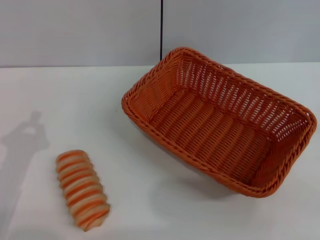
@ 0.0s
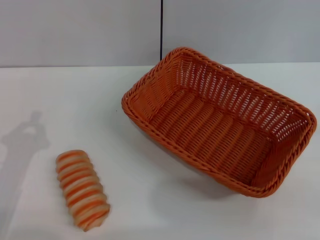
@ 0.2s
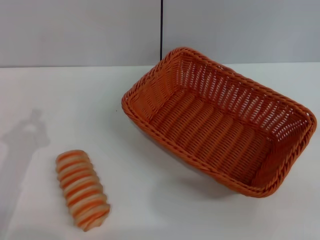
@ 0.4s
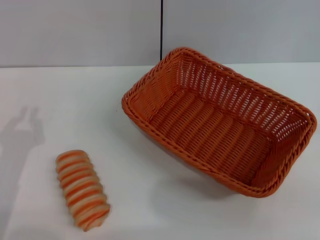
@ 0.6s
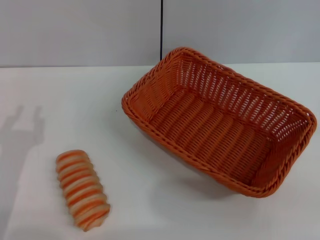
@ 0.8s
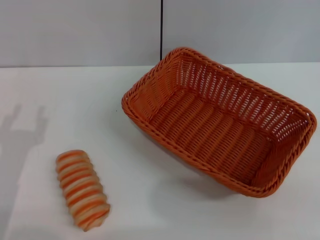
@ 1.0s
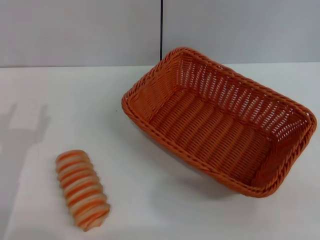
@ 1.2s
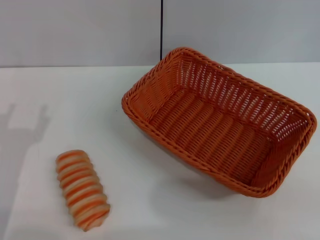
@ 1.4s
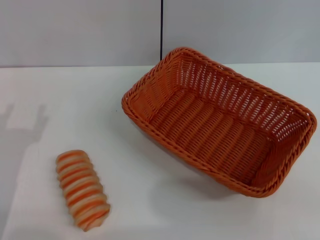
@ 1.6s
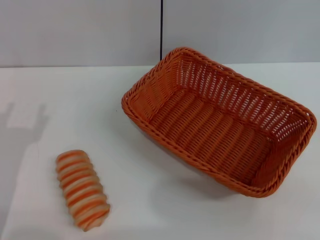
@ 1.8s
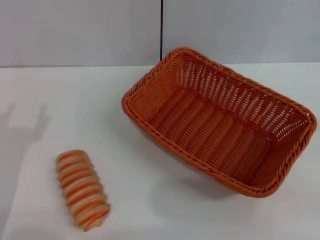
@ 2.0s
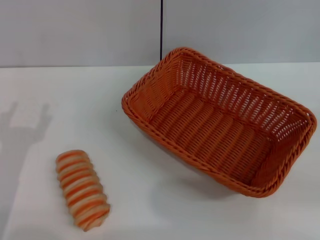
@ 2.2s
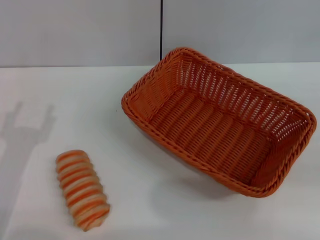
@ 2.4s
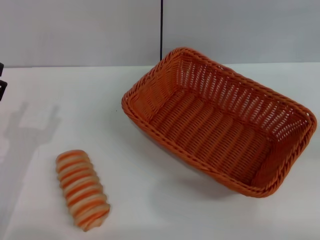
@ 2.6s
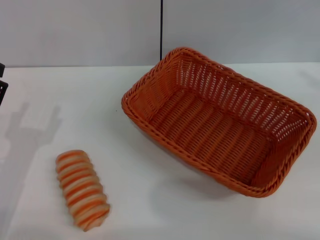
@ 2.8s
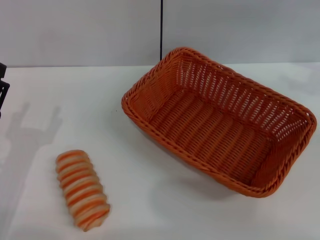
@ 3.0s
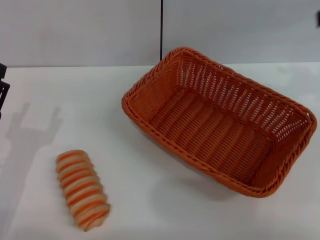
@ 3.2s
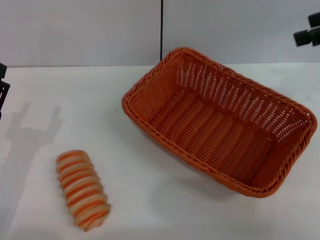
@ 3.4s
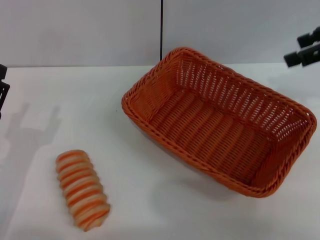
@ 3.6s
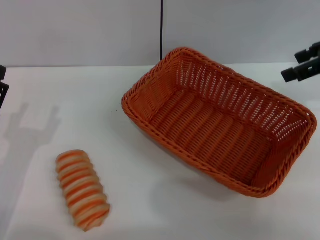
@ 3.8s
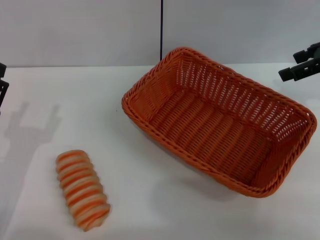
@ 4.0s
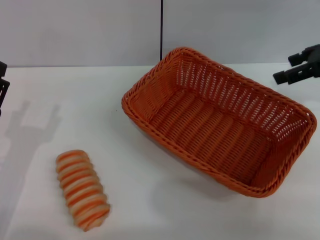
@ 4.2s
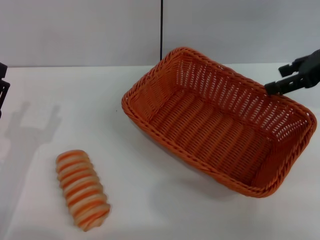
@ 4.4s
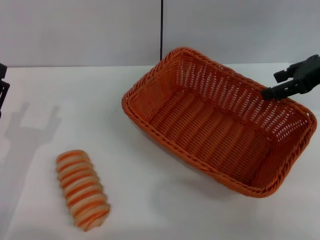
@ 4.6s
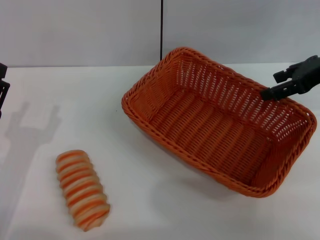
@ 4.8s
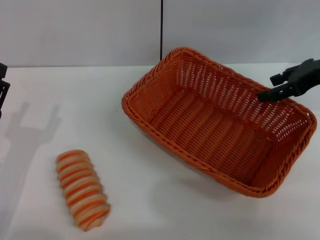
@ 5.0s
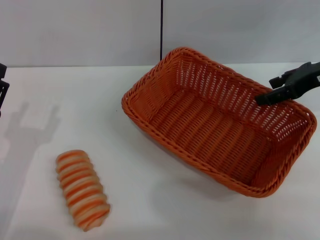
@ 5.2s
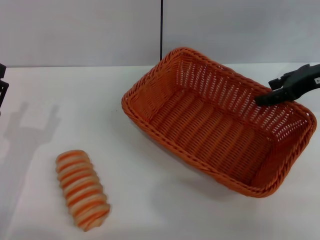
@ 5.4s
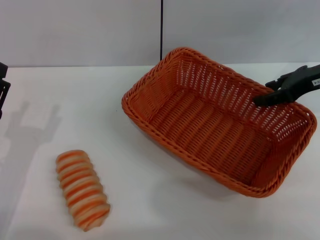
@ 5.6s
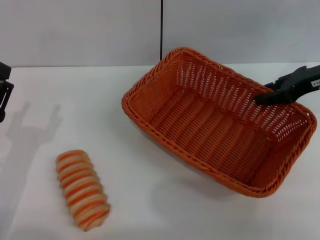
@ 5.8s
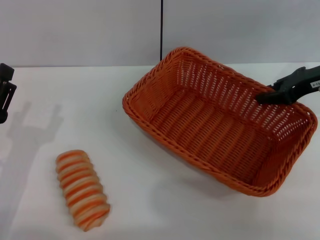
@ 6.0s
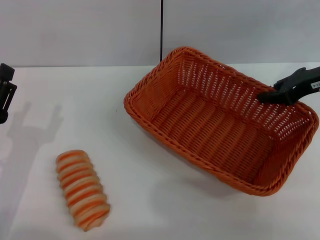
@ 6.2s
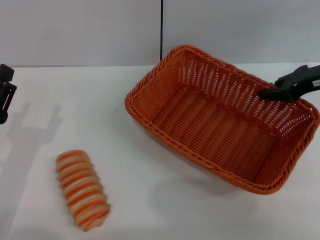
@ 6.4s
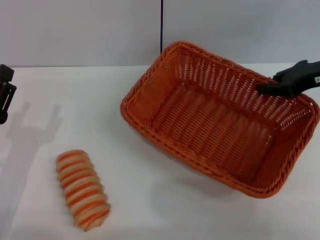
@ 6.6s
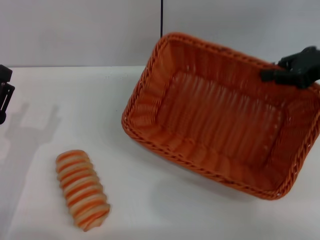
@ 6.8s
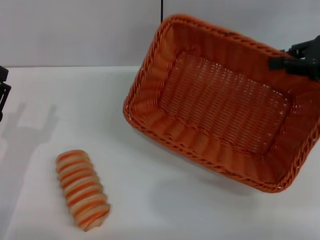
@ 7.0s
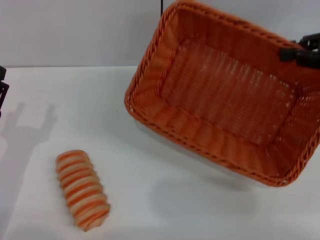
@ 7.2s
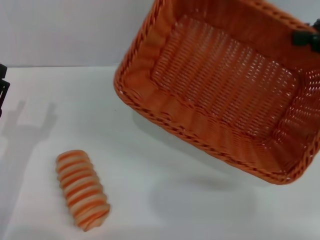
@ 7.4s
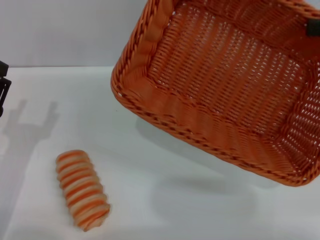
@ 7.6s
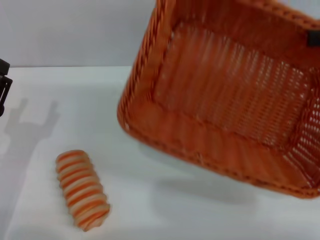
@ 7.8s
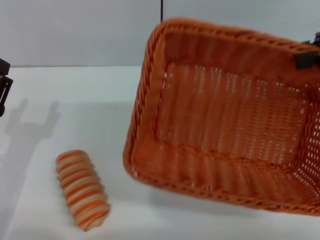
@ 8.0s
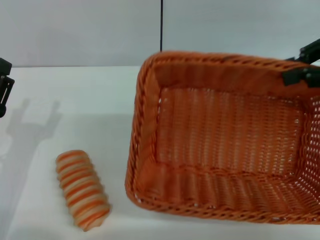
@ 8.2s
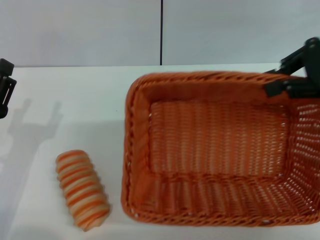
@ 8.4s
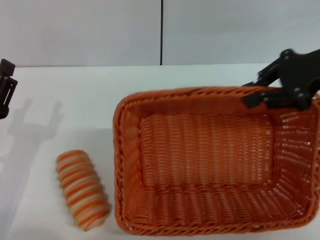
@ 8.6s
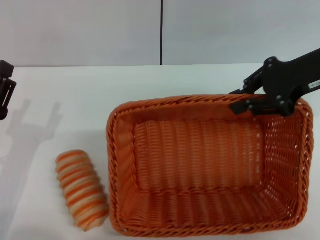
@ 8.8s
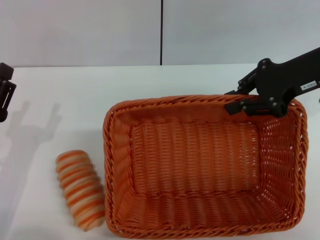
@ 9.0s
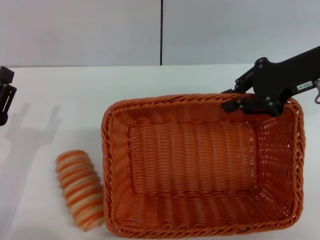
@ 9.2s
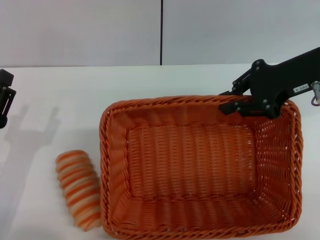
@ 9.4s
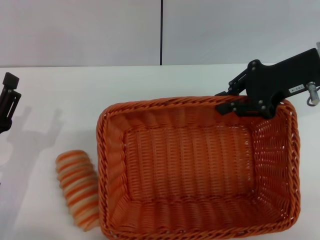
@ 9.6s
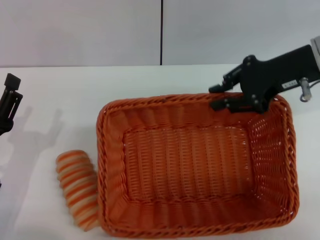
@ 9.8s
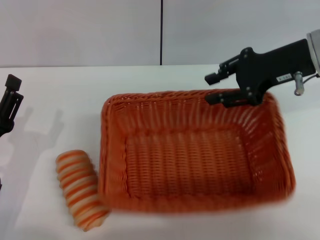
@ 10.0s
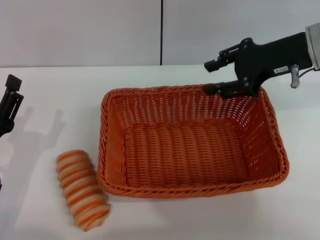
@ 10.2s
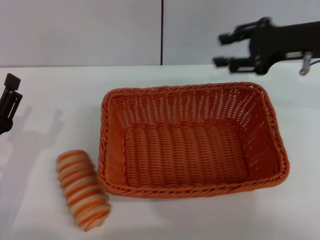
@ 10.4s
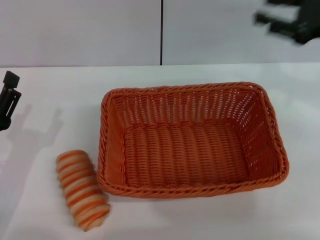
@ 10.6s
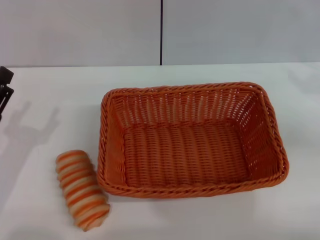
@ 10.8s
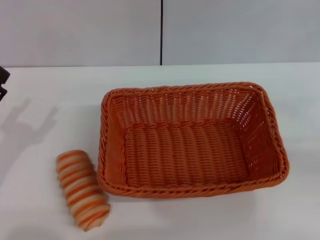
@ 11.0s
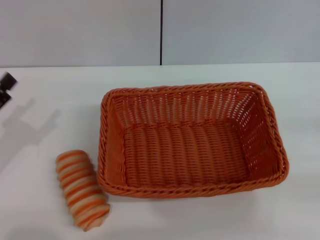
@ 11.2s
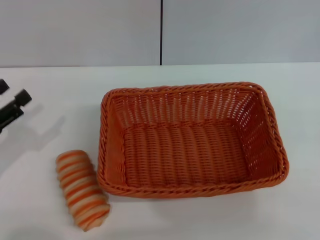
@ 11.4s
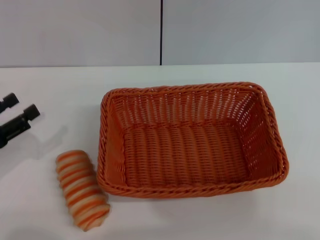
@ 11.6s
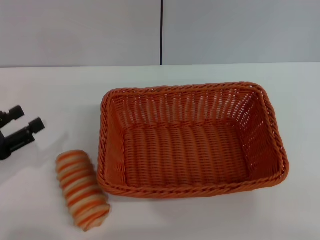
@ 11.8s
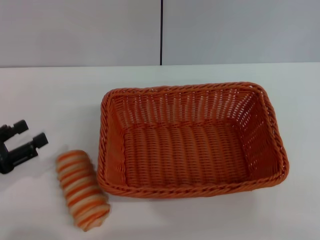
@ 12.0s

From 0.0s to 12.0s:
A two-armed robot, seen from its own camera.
Step, from 0.0s to 7.0s: Pick up the light basket with the right gripper.
Step, from 7.2s to 10.2s: Place the light basket in the center of view with the right gripper.
From 3.0s to 4.4s: The right gripper travels downward, to the left and forward by some 15 cm.
From 4.4s to 6.0s: The right gripper closes up.
From 6.0s to 7.6s: The right gripper moves upward, to the right and backward, about 10 cm, and closes.
From 7.6s to 9.0s: The right gripper travels to the left by roughly 10 cm.
From 9.0s to 10.4s: The right gripper opens its fingers.
From 10.4s to 12.0s: The right gripper travels to the right, backward and downward by about 35 cm; the left gripper heads to the left, covering some 10 cm.

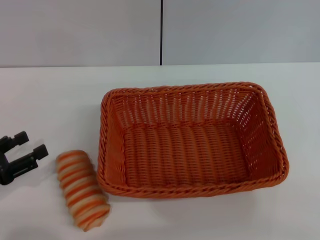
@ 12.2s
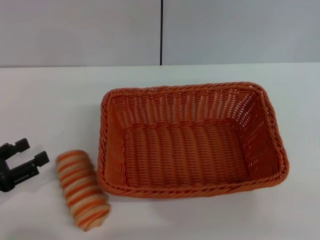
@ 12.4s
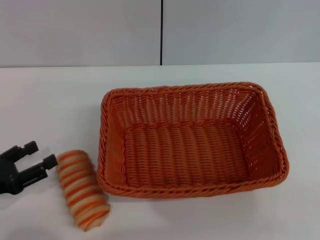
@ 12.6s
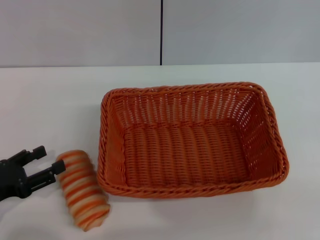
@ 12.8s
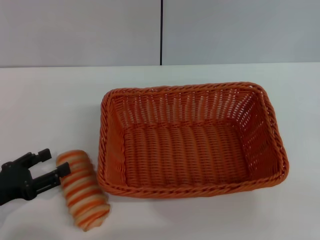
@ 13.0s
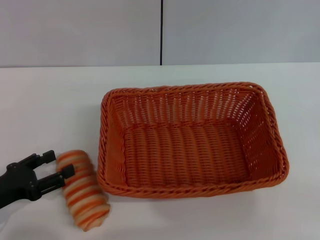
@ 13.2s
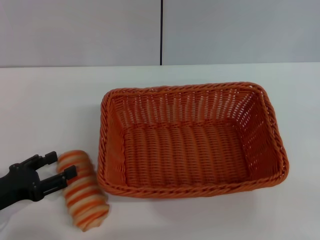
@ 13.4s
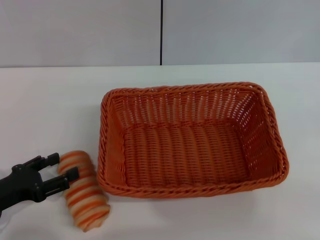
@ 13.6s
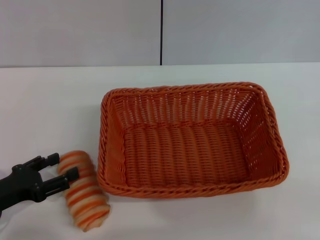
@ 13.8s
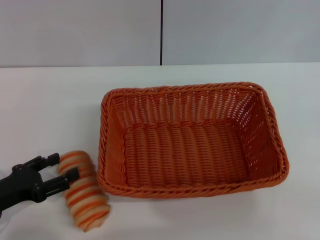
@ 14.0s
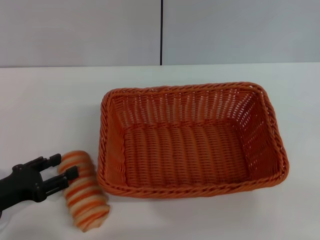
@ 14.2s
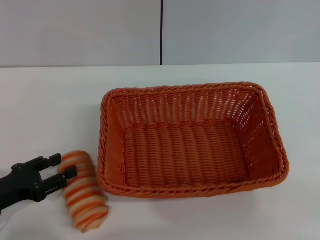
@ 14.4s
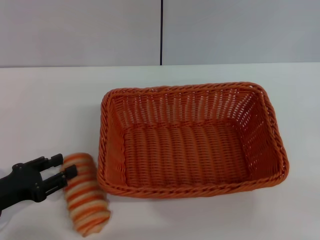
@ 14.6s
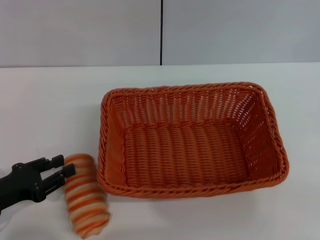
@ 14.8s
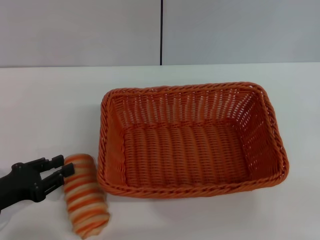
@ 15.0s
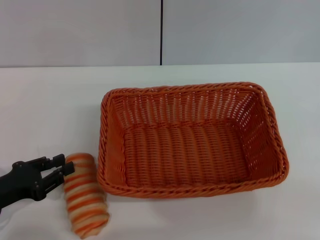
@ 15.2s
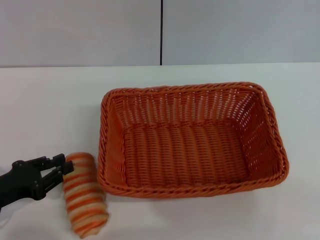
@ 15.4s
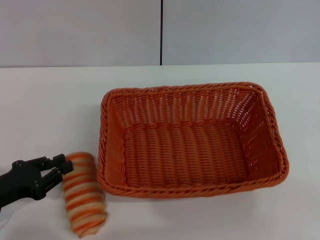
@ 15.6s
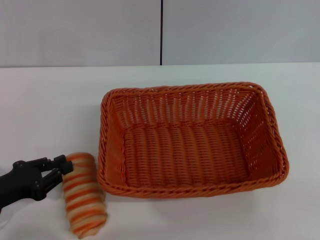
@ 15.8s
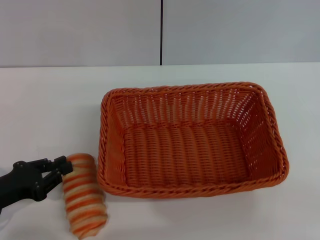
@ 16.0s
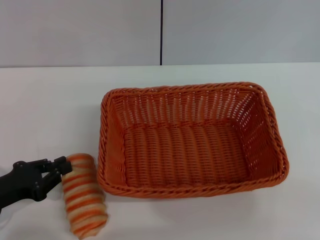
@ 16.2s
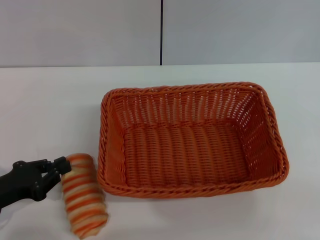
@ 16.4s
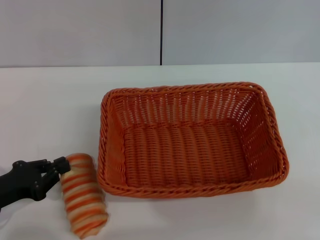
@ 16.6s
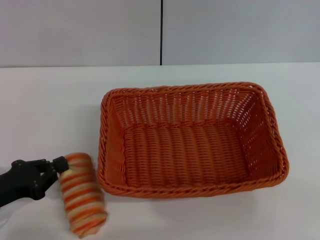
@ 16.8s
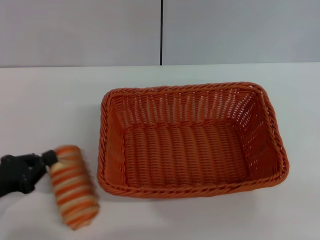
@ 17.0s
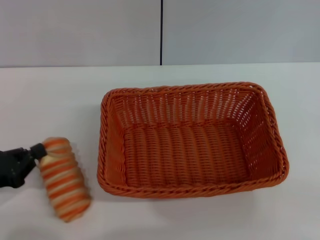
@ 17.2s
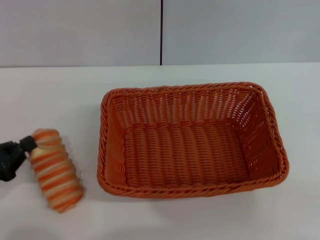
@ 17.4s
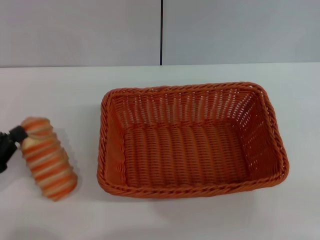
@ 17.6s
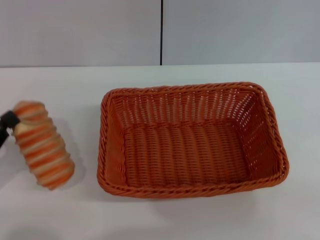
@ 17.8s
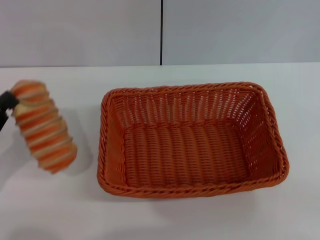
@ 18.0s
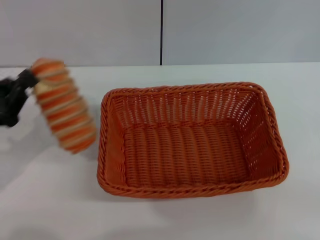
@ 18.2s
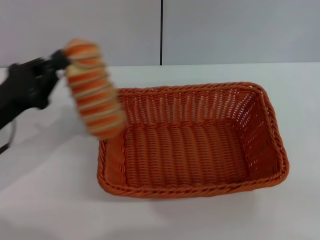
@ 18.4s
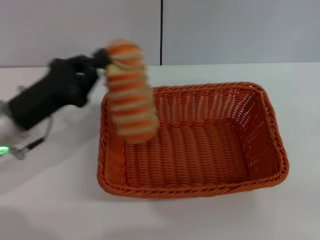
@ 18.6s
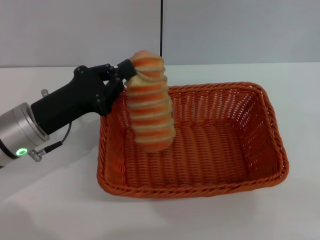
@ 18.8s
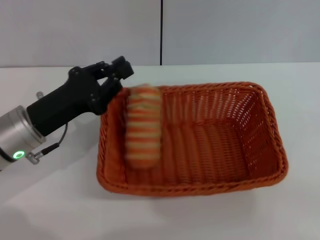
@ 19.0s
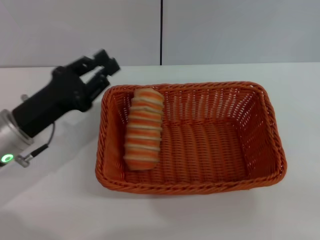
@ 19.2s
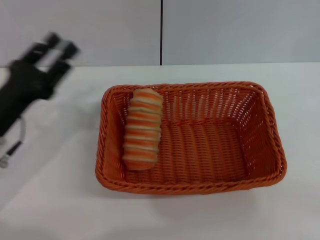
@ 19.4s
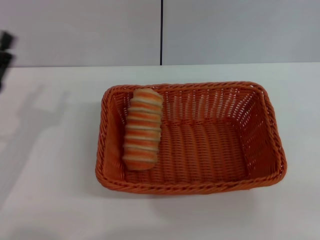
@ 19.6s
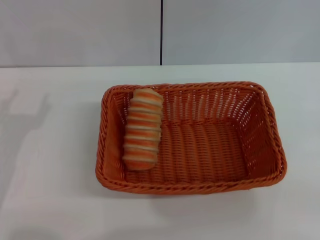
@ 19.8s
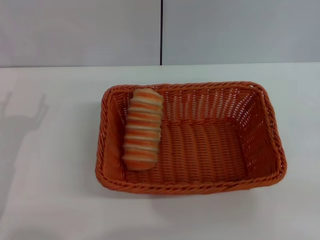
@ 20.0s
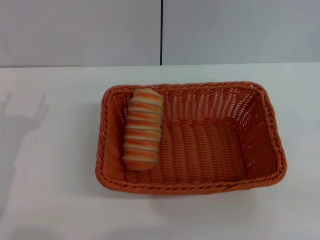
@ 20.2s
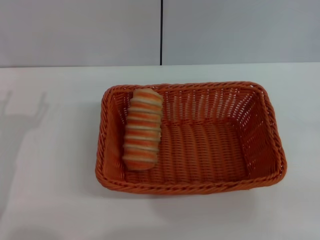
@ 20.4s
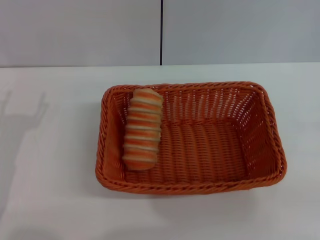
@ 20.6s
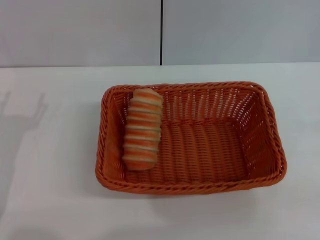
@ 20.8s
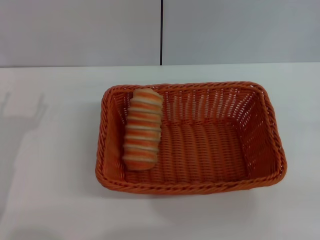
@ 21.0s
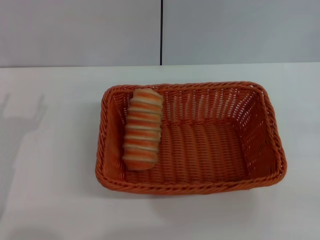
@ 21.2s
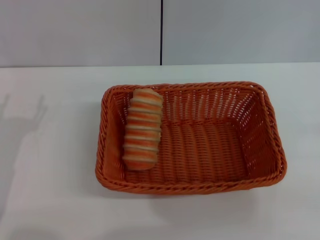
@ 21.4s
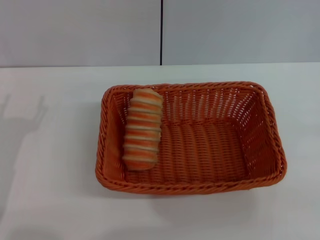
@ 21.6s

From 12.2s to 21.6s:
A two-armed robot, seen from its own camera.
Step, from 12.2s to 17.8s: Pick up the long bread with the left gripper.
Step, from 18.0s to 19.0s: Place the long bread into the light basket with the left gripper.
From 12.2s to 13.8s: The grippers move only a little.
From 13.8s to 15.4s: The left gripper closes up.
From 15.4s to 17.0s: The left gripper closes up.
From 17.0s to 18.4s: The left gripper travels forward and upward by roughly 10 cm.
From 18.4s to 20.0s: The left gripper heads backward, covering about 5 cm, and opens up.
From 20.0s to 21.6s: Neither gripper changes place.
